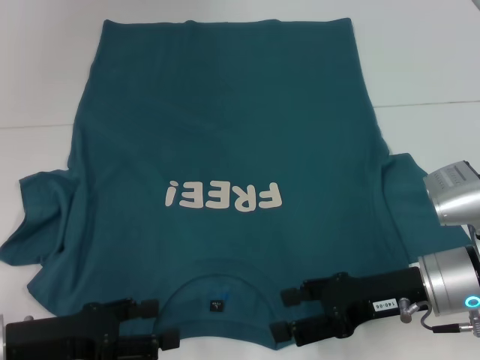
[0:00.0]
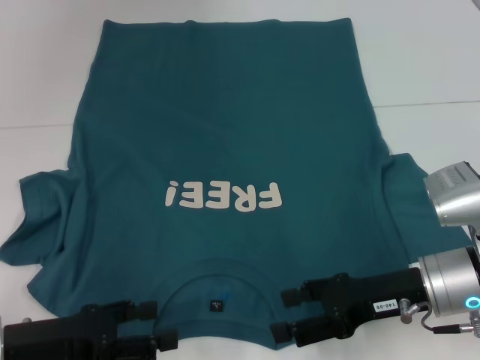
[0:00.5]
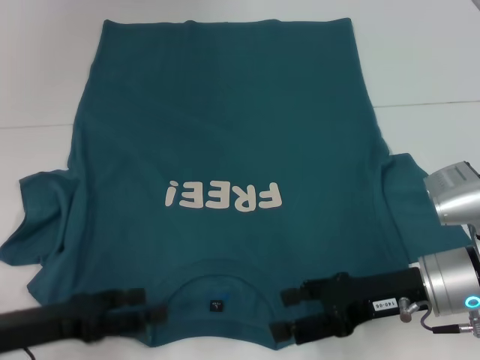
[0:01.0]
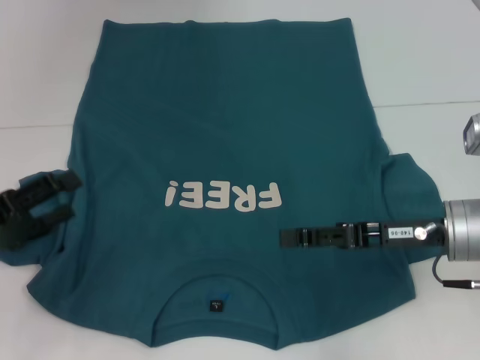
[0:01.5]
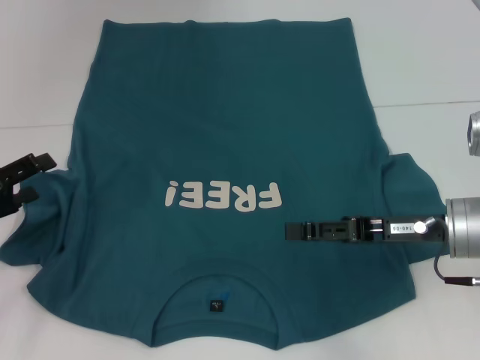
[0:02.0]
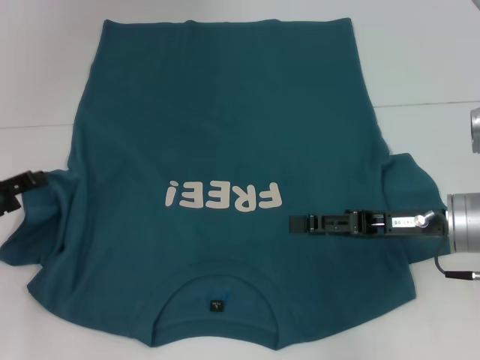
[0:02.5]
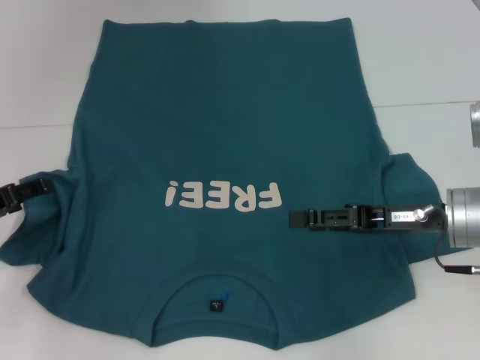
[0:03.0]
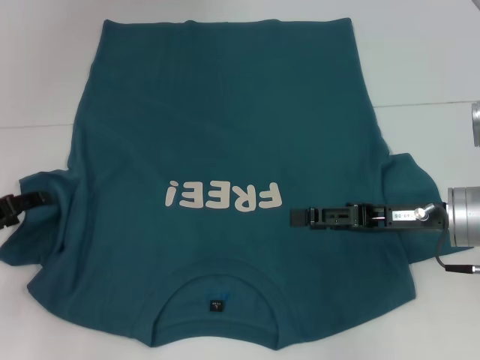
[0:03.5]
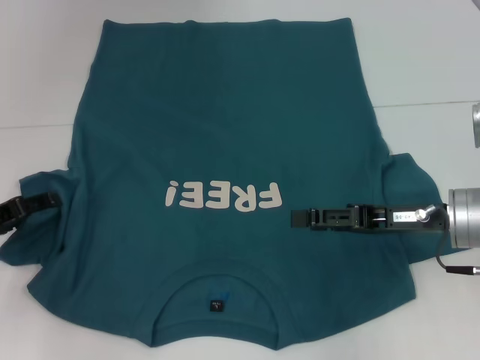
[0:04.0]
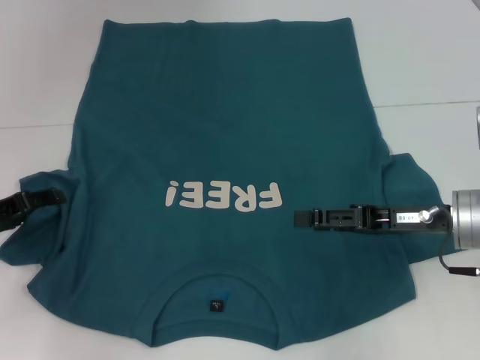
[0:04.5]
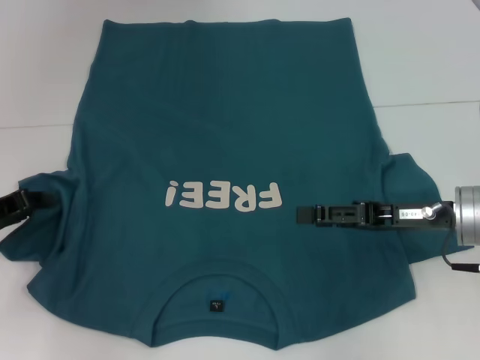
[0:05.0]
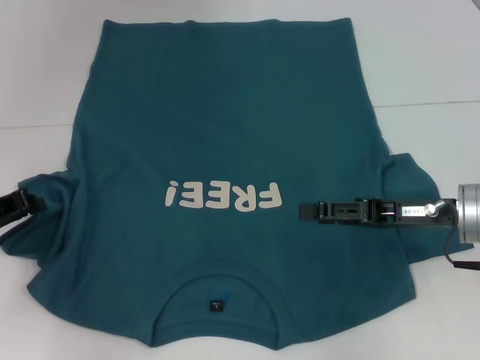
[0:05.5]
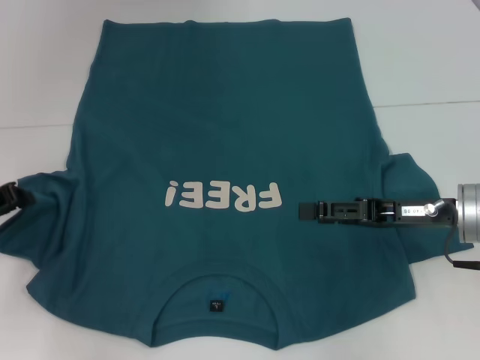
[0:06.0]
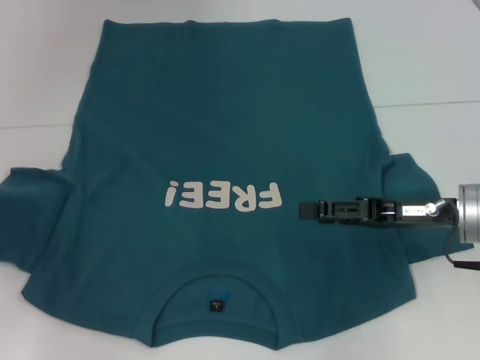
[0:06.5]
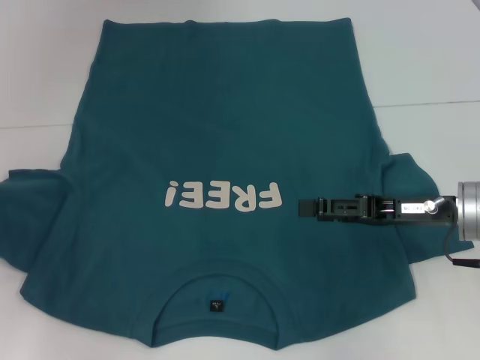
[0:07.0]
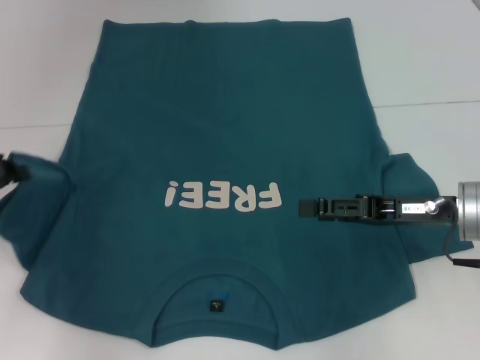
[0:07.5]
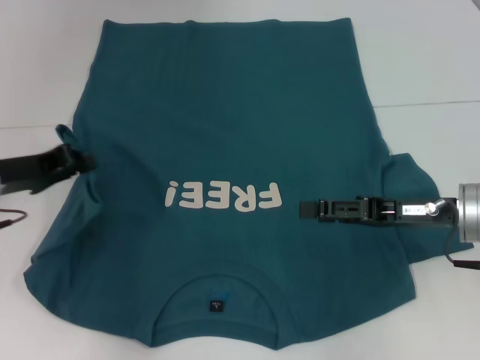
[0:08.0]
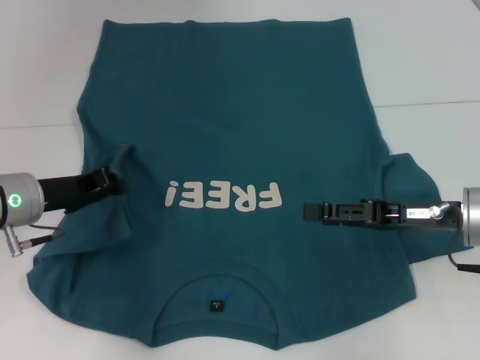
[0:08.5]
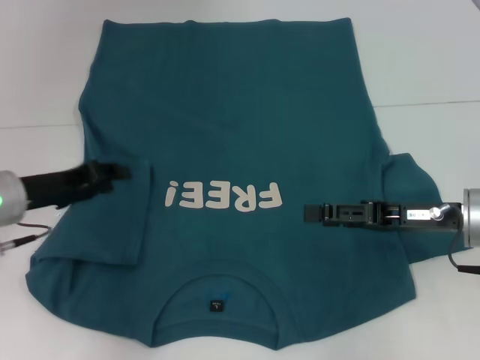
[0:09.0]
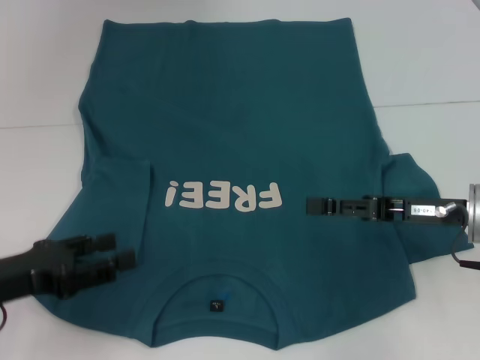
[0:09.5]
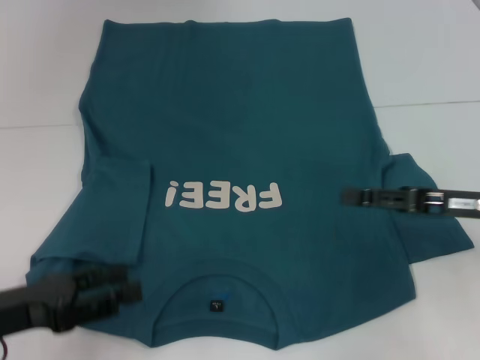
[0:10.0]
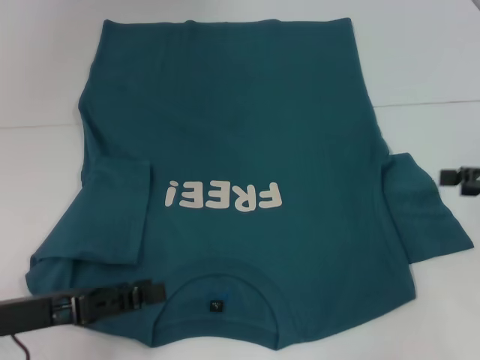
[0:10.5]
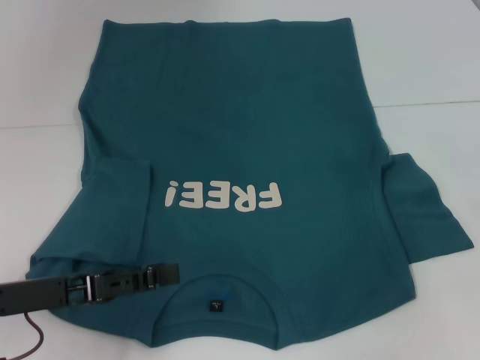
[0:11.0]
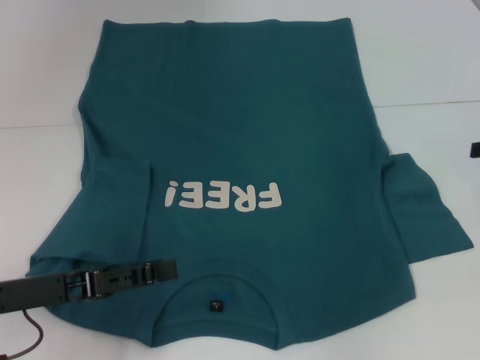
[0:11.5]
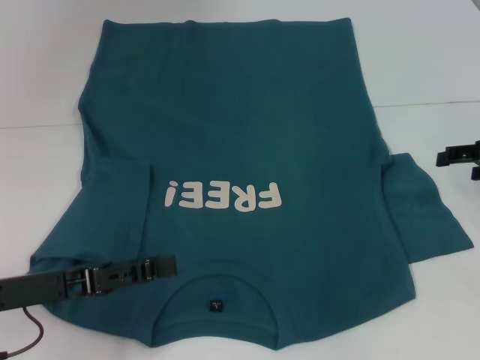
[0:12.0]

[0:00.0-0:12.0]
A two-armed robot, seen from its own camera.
Step, 0:00.0 to 0:08.5: Fold the bottom left sleeve with your left hand.
0:00.0 to 0:02.0: The left gripper is displaced to the left and forward by some 10 cm.
0:04.0 to 0:06.0: The left gripper closes its fingers.
0:06.0 to 0:08.0: The left gripper shifts some 5 cm to the right.
0:08.0 to 0:10.0: The left gripper travels backward by about 15 cm, and opens its fingers.
0:10.0 to 0:12.0: The right gripper travels to the right and forward by approximately 10 cm.

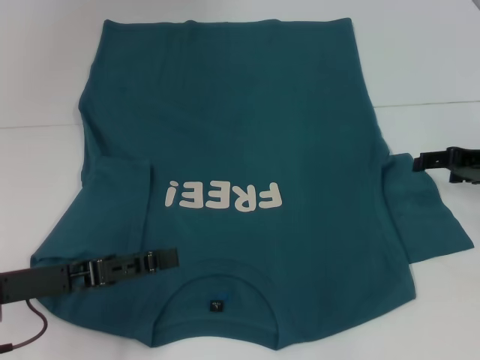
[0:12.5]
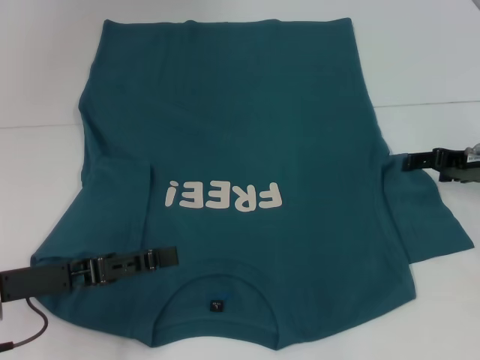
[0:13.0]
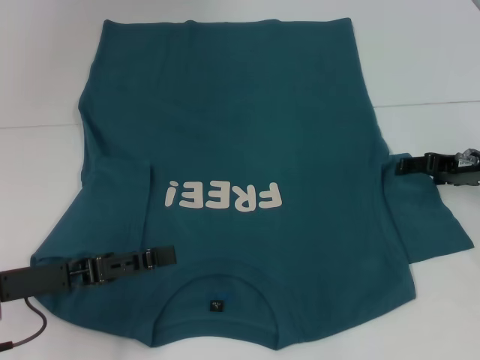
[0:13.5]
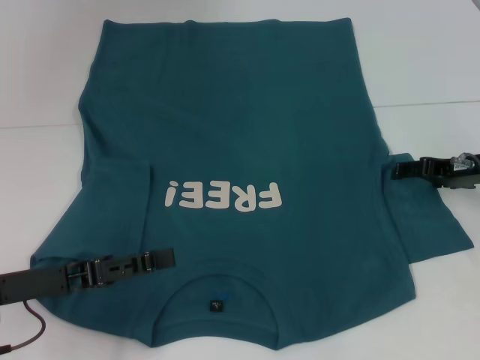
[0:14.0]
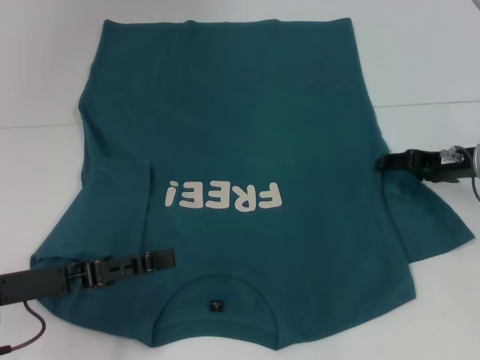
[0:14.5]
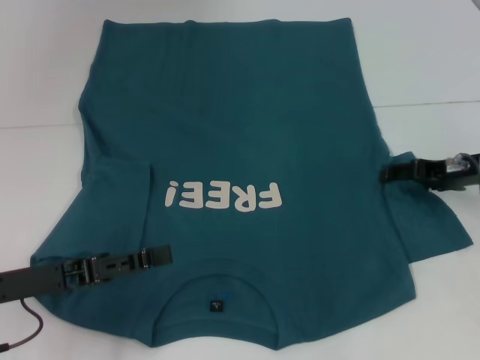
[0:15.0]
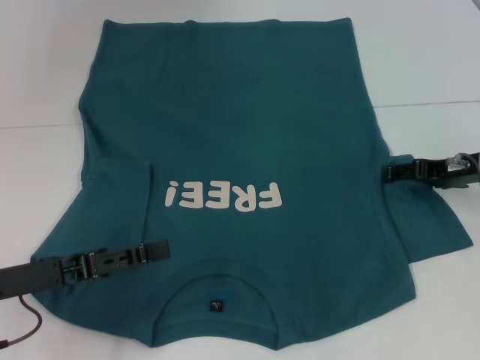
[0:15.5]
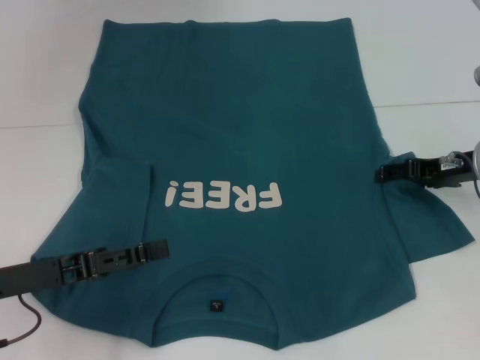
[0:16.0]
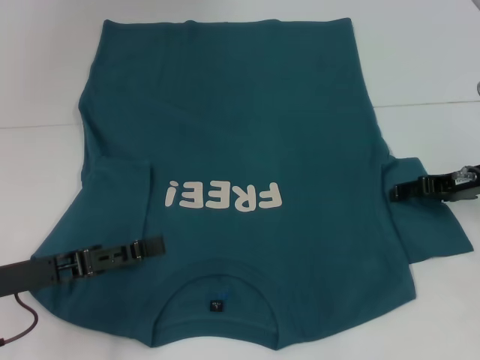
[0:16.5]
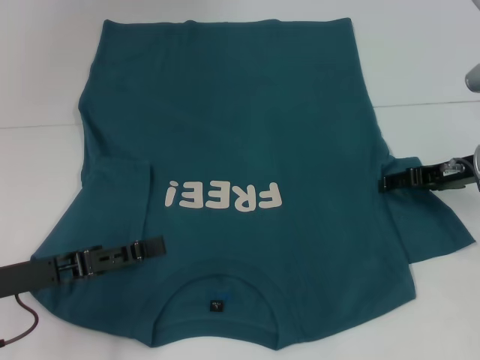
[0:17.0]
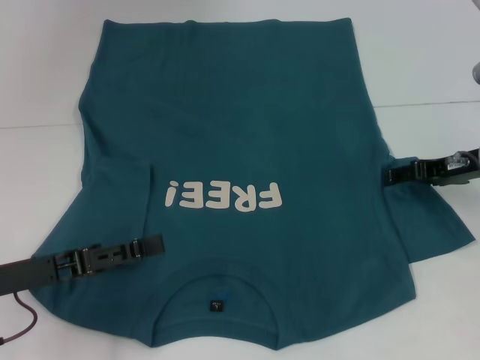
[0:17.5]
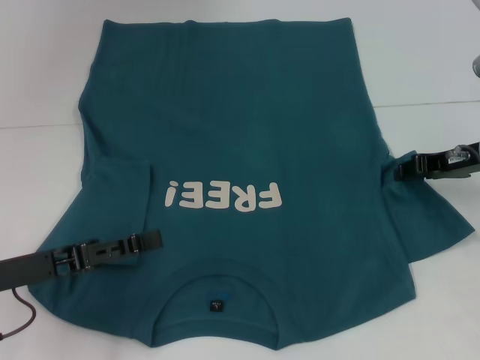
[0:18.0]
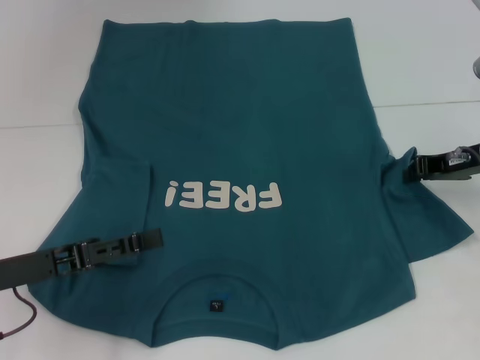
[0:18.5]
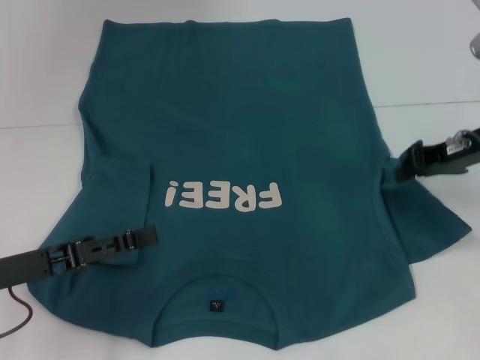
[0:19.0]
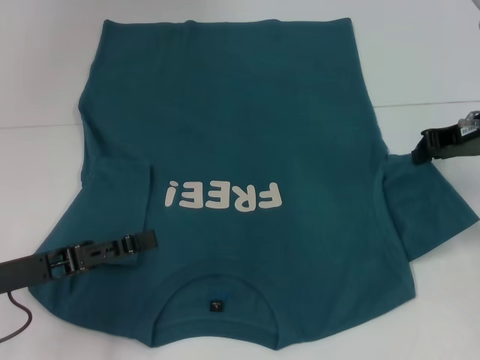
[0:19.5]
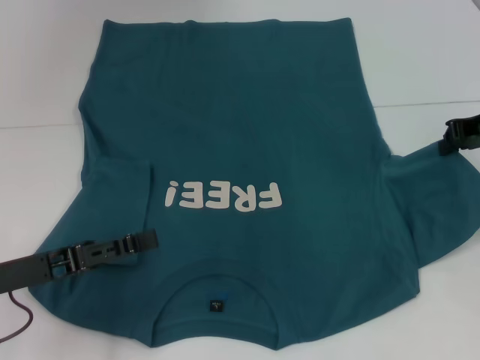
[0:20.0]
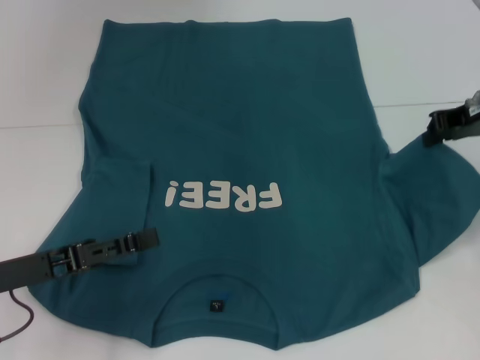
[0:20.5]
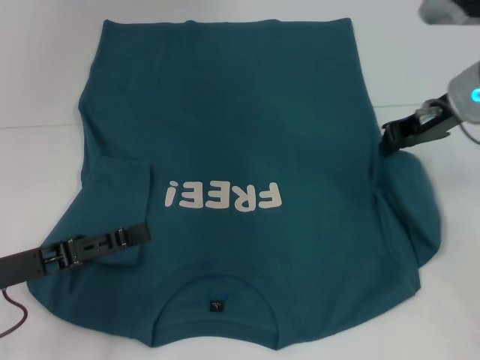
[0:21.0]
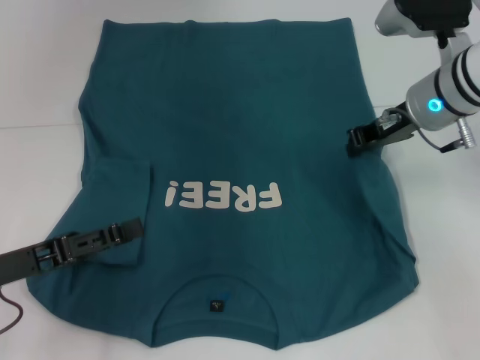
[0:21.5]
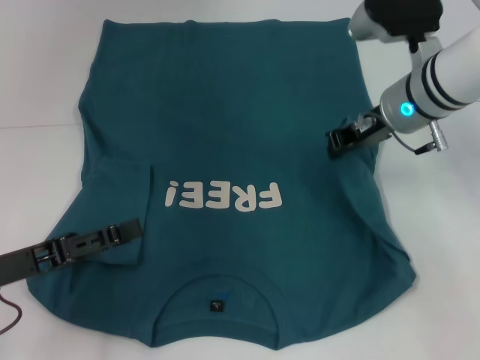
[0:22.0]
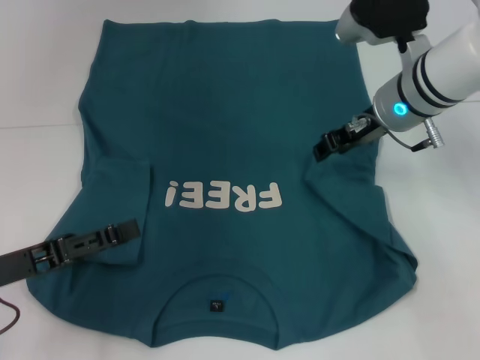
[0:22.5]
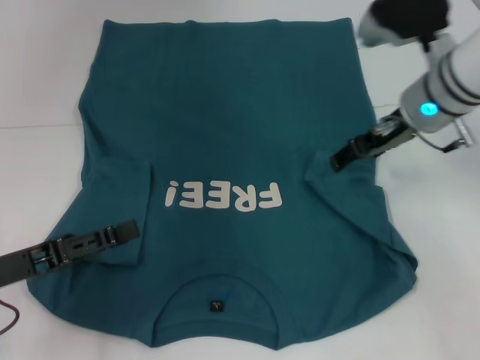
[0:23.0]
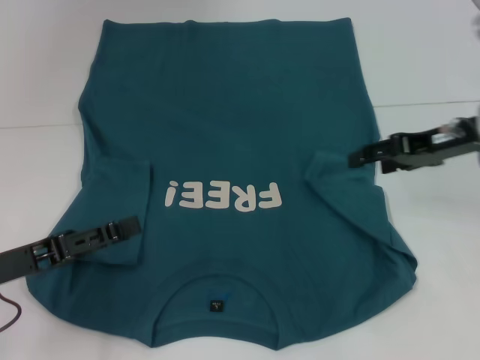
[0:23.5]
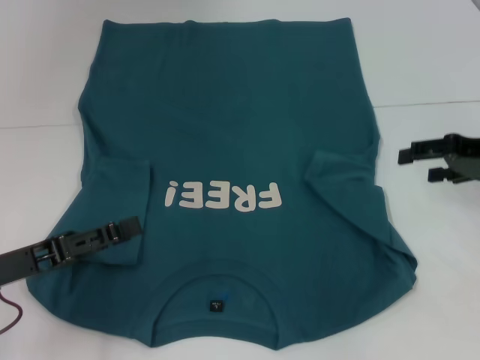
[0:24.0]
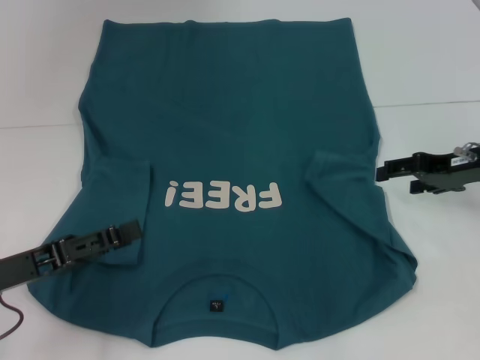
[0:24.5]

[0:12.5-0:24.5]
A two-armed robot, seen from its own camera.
0:12.5 to 0:16.5: There are only small adjustments of the grippers.
0:16.5 to 0:18.5: The right gripper closes up.
0:18.5 to 0:20.5: The right gripper is displaced upward by approximately 10 cm.
0:20.5 to 0:22.5: The right gripper shifts roughly 10 cm to the left.
0:22.5 to 0:24.5: The right gripper is displaced to the right and backward by roughly 15 cm, and opens up.

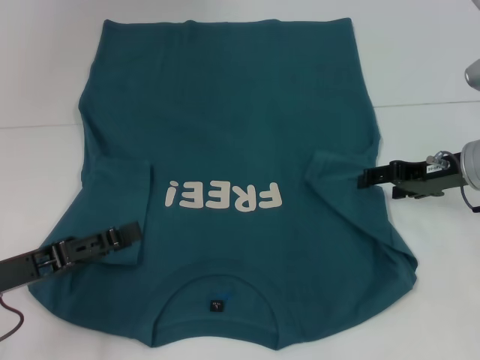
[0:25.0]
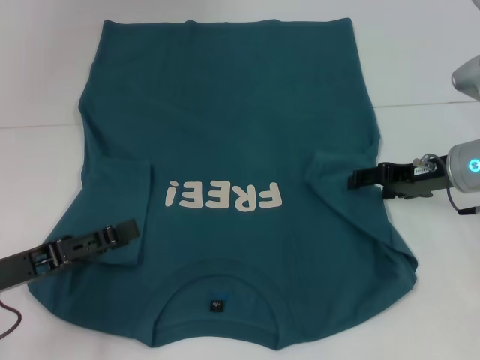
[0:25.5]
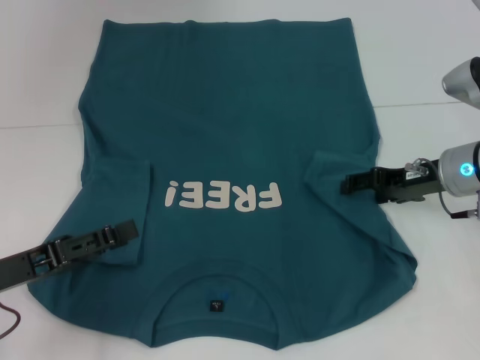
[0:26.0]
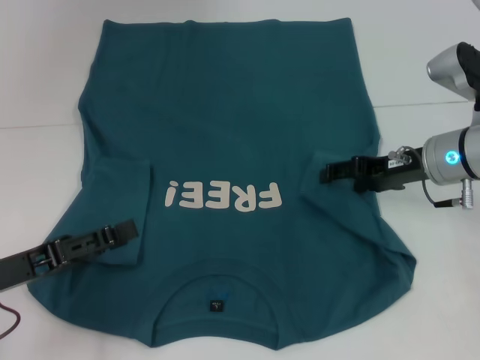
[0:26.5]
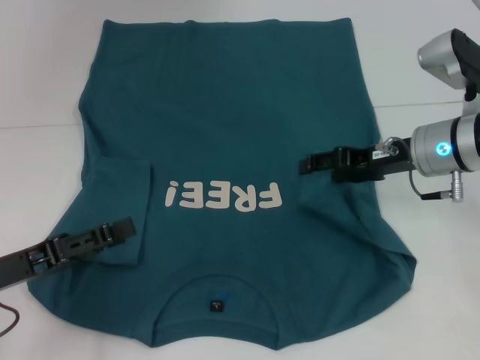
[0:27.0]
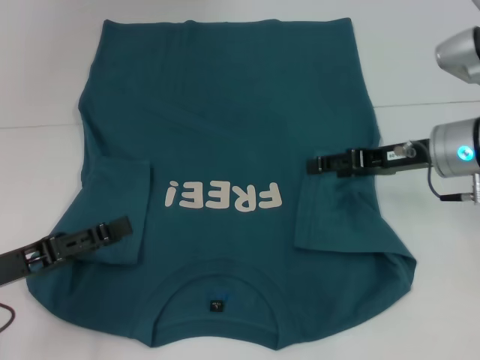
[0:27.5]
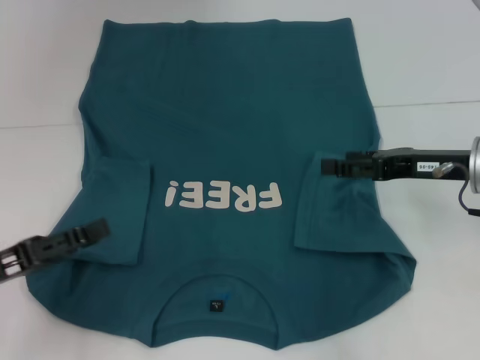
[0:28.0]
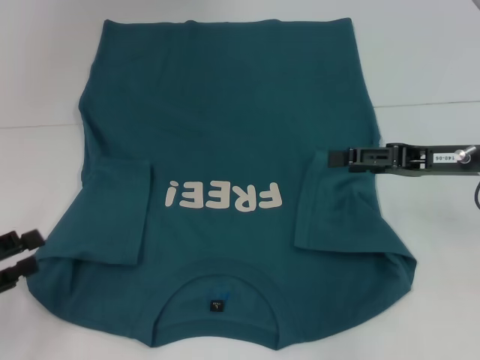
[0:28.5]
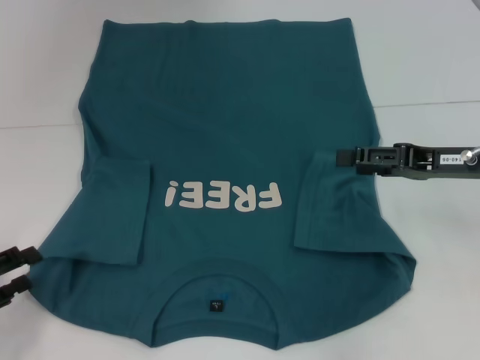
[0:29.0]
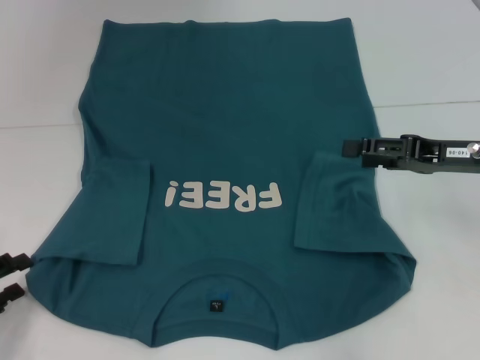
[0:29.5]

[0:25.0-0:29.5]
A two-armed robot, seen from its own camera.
Step, 0:25.0 to 0:27.5: Fold the bottom right sleeve to the right.
0:25.0 to 0:27.0: The right gripper is displaced to the left by some 5 cm.
0:27.0 to 0:29.5: The right gripper shifts roughly 10 cm to the right and backward. Meanwhile the left gripper shifts some 10 cm to the left and downward.
